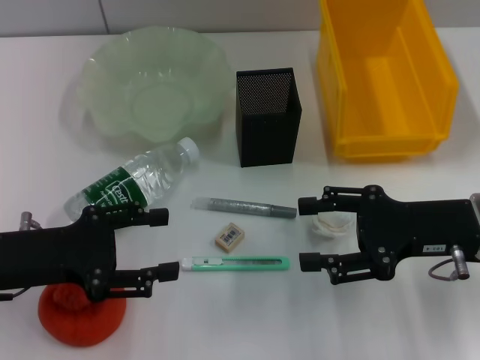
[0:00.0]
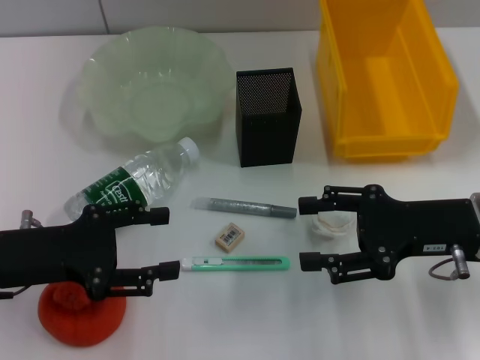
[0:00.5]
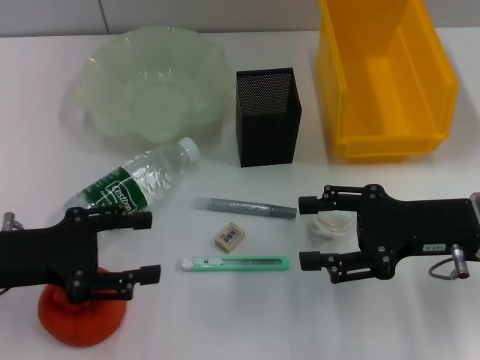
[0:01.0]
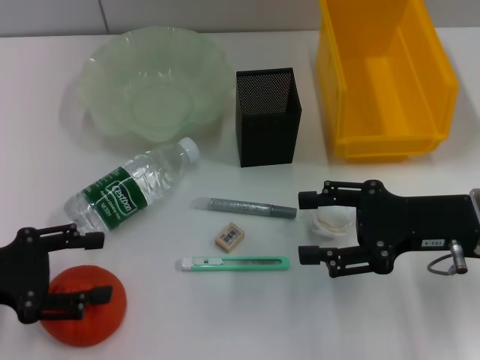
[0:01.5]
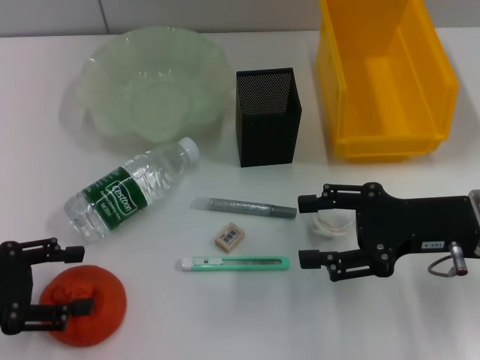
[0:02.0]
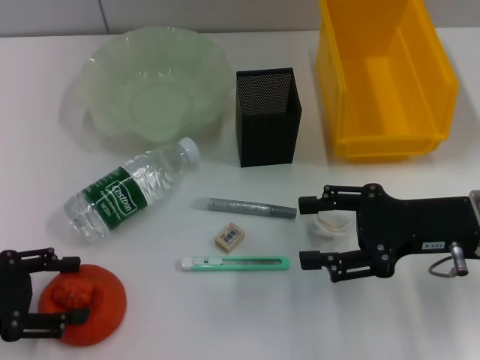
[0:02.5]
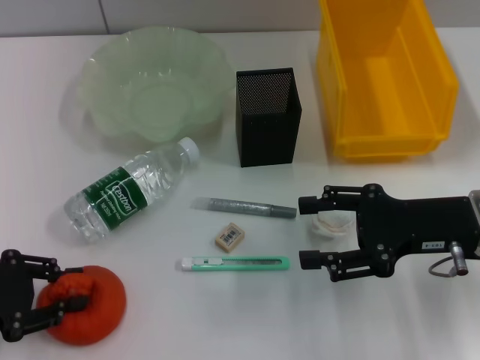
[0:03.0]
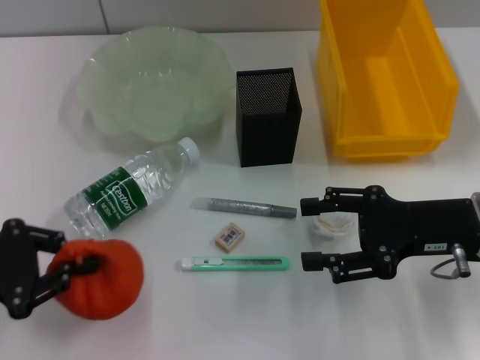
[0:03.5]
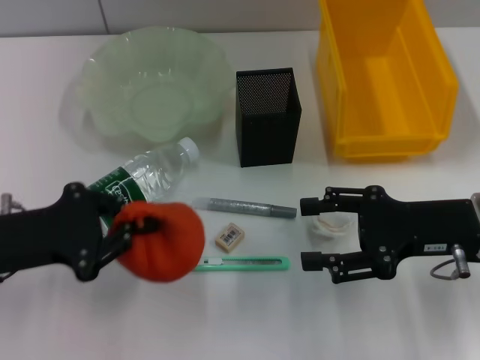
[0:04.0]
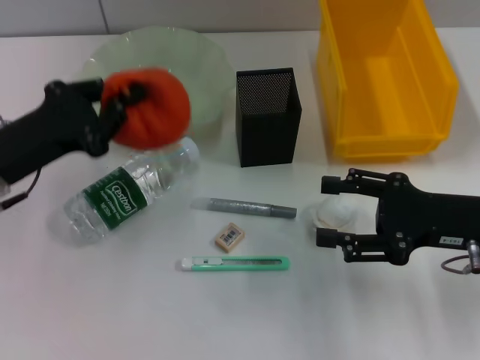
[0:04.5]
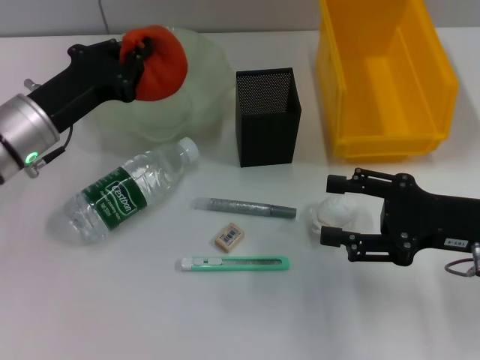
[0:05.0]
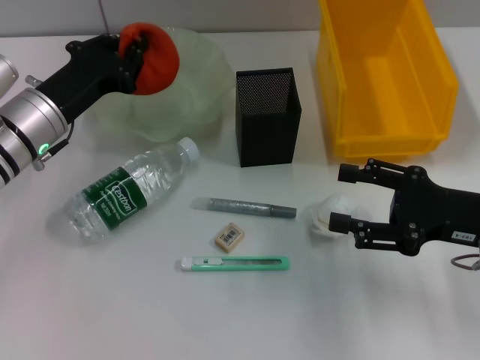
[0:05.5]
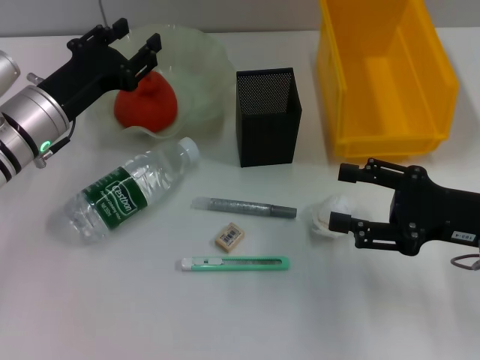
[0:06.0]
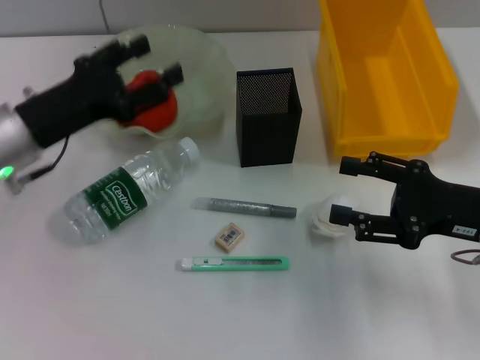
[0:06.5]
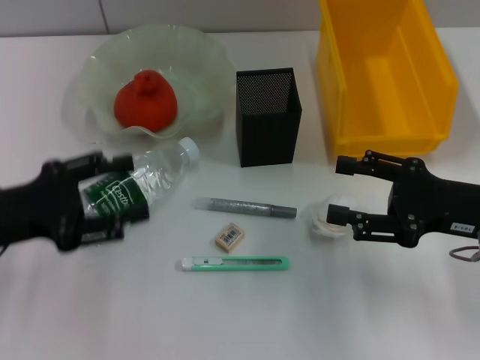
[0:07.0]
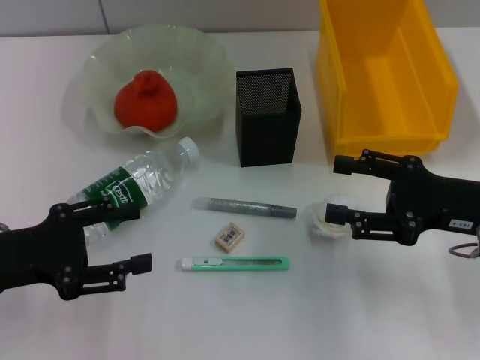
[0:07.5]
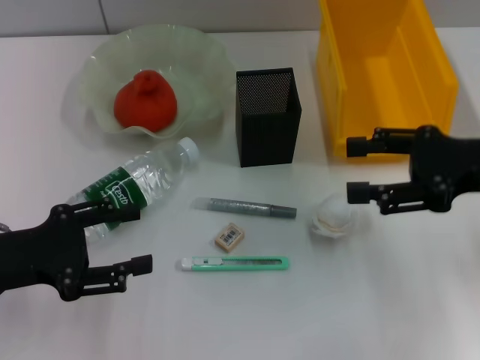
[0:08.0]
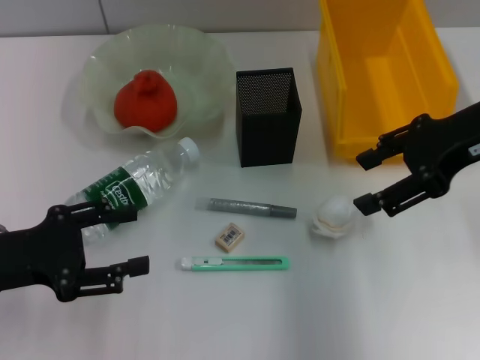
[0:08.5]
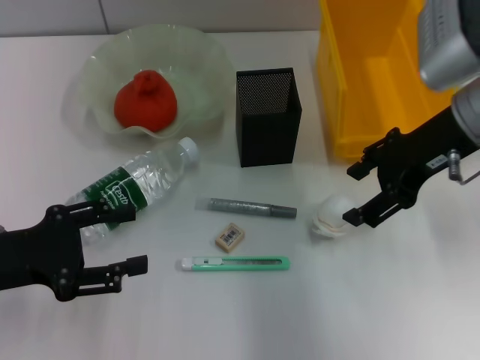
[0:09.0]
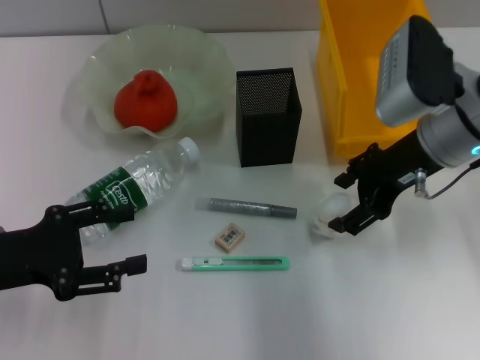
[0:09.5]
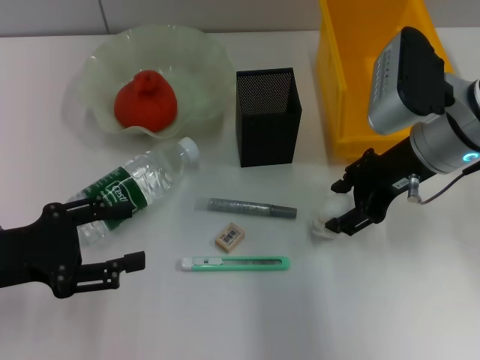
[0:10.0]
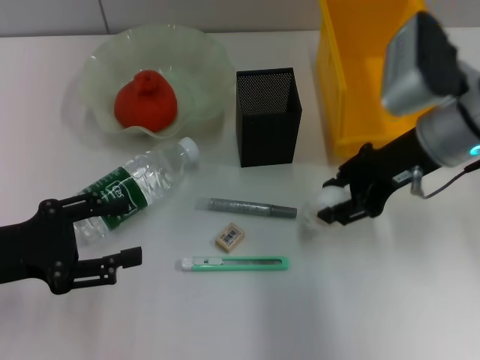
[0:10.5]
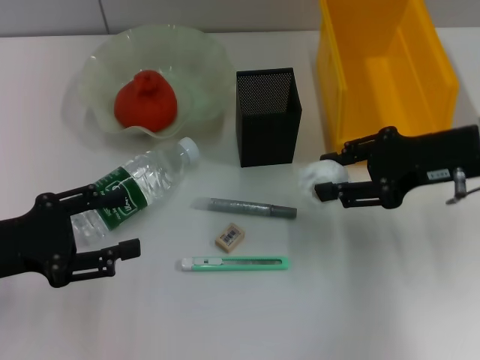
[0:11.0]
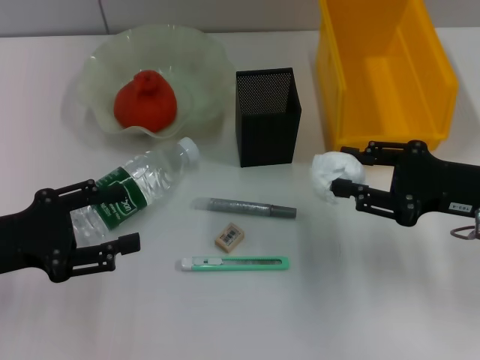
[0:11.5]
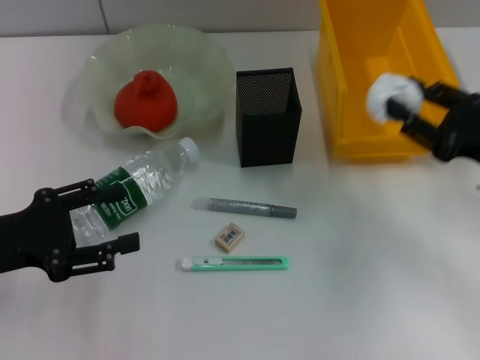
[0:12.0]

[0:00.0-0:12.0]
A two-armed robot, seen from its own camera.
Step, 0:00.0 to 0:03.0: Grab the orange with the left hand.
Step, 0:03.5 to 0:06.0: Place the orange into the fruit bowl with the left hand.
Step, 0:06.5 to 0:10.0: Grab the paper ball with the right hand.
0:00.0 to 0:02.0: The left gripper moves to the left, about 5 cm.
0:02.0 to 0:04.0: The left gripper heads to the right, covering roughly 5 cm, and closes its fingers.
0:04.0 to 0:06.0: The left gripper goes about 15 cm forward and to the right, and opens its fingers.
0:06.0 to 0:08.0: The right gripper is displaced upward by roughly 5 cm. Meanwhile the left gripper goes approximately 15 cm backward and to the left, and opens.
0:08.0 to 0:10.0: The right gripper shifts roughly 10 cm to the left and forward.
0:10.0 to 0:12.0: The right gripper goes approximately 15 cm to the right, backward and downward.

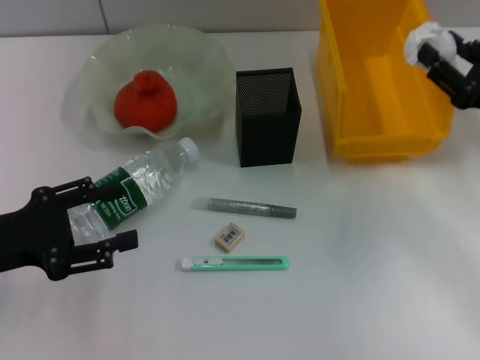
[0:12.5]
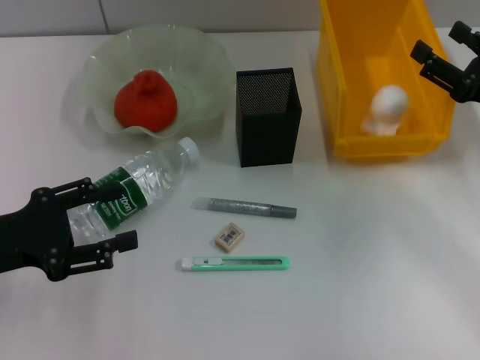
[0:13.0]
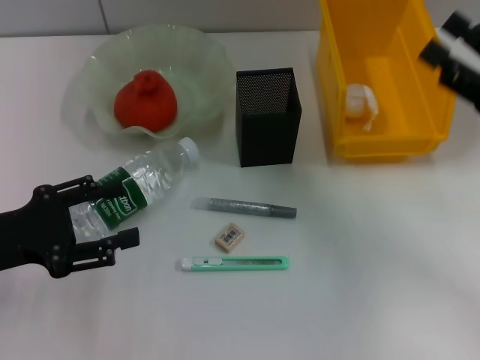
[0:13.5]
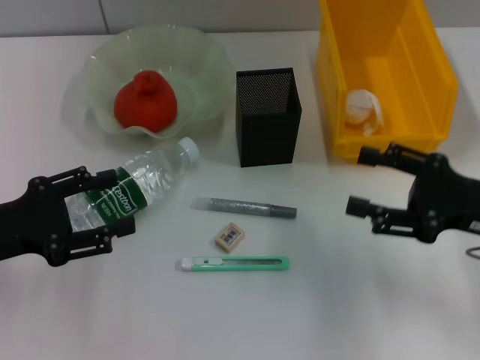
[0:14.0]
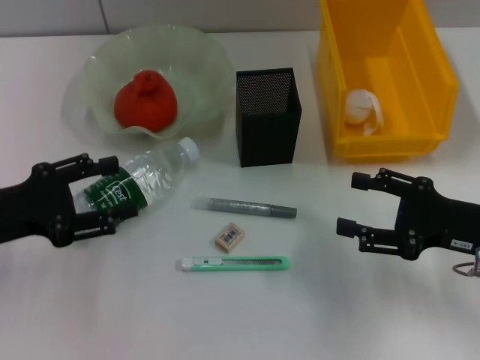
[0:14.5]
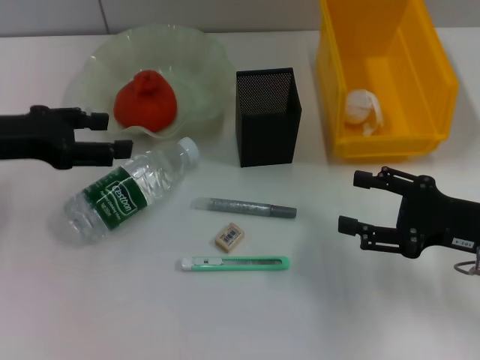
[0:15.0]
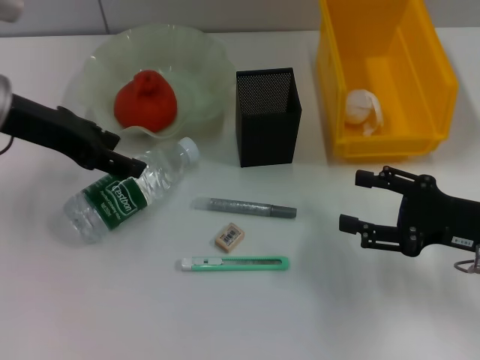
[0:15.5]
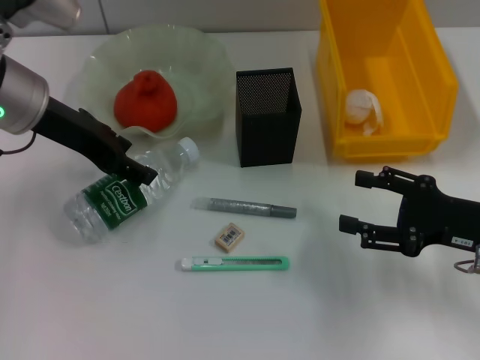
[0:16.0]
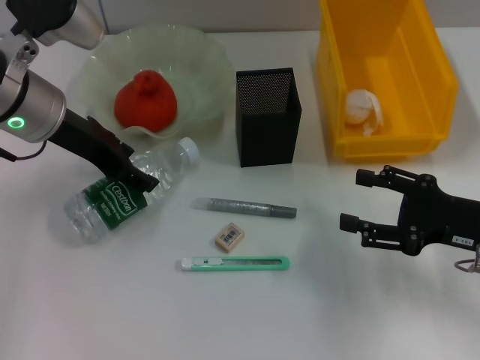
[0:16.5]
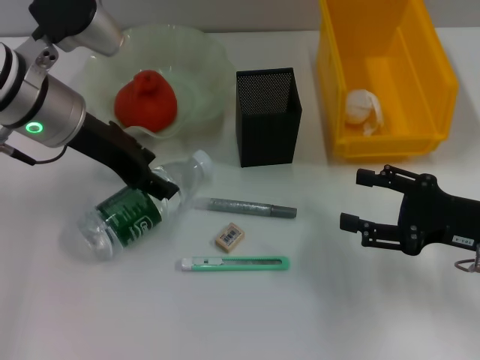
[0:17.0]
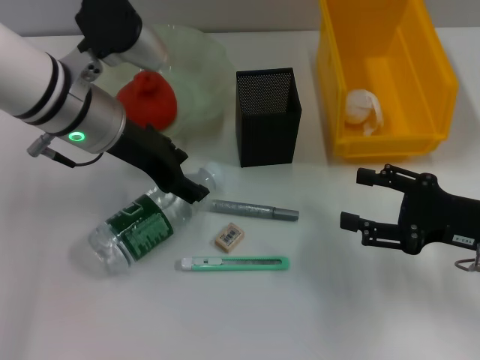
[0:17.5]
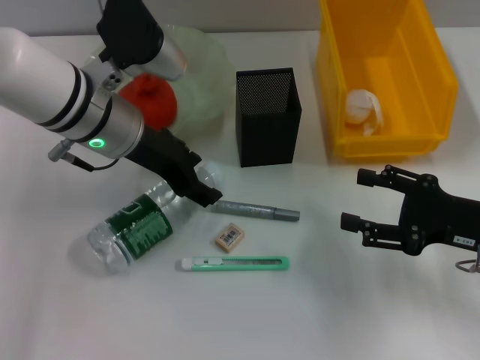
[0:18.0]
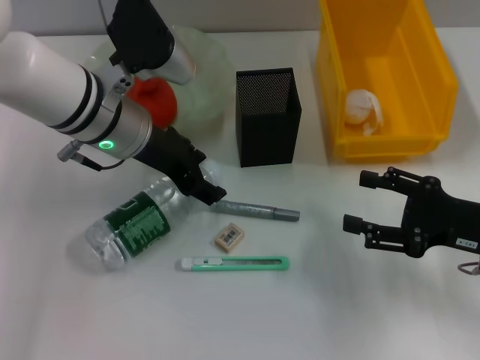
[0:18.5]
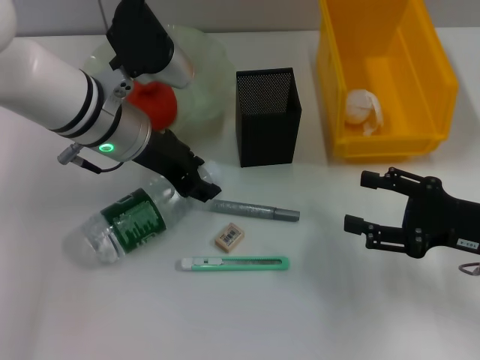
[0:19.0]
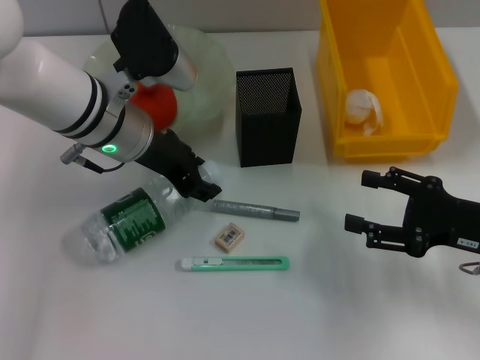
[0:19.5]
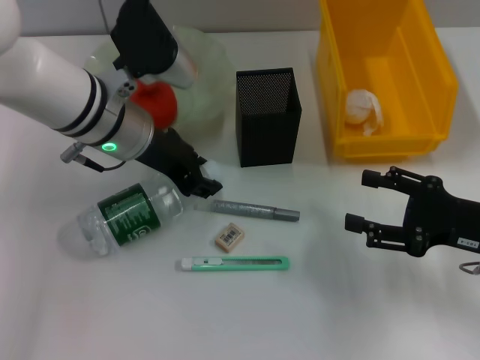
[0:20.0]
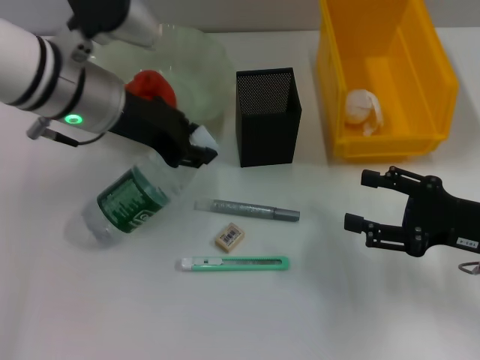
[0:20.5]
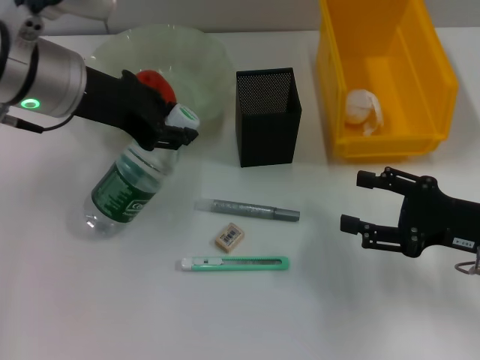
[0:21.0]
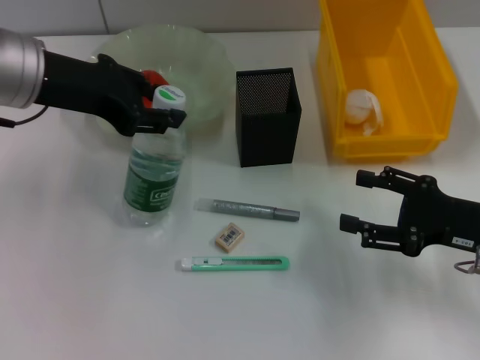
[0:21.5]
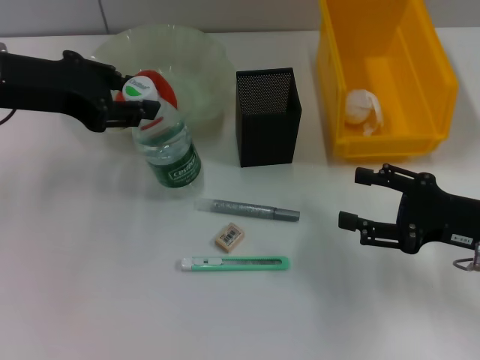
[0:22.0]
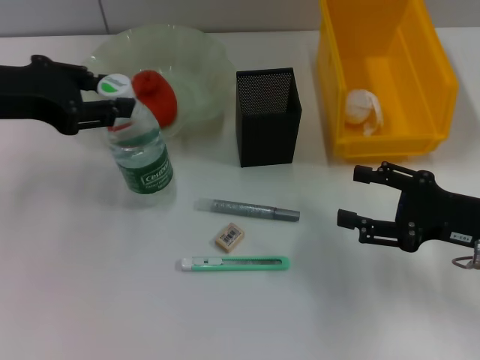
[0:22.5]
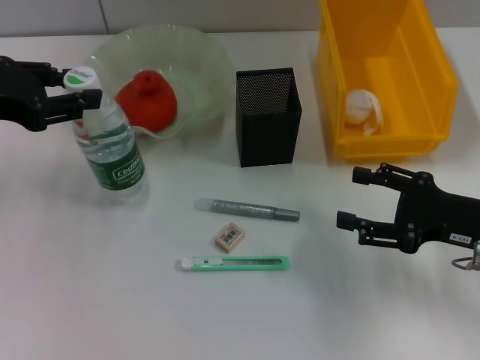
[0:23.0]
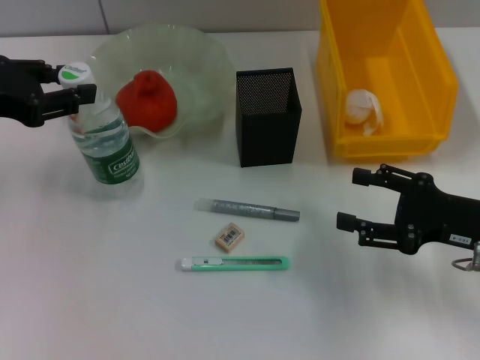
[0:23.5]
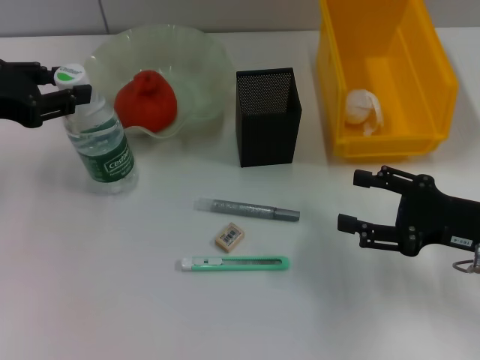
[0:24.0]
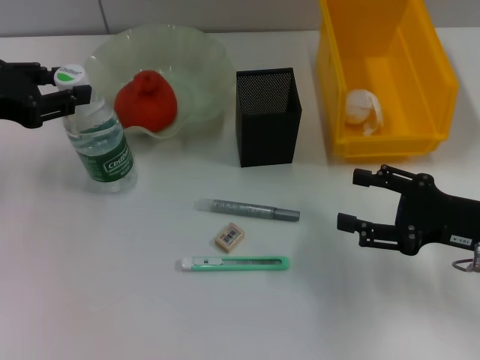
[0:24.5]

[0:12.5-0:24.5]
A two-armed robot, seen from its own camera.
Step, 0:13.5 to 0:19.5: Grab the water bottle with the left hand.
0:12.5 to 0:14.5: The right gripper heads backward, covering about 5 cm.
0:14.5 to 0:16.5: The left gripper shifts roughly 20 cm forward, to the right and upward.
0:16.5 to 0:18.5: The left gripper moves to the right, roughly 5 cm.
0:18.5 to 0:20.5: The left gripper closes its fingers.
0:20.5 to 0:22.5: The left gripper moves to the left, about 10 cm.
0:22.5 to 0:24.5: The grippers stay close to where they were, moving slightly.

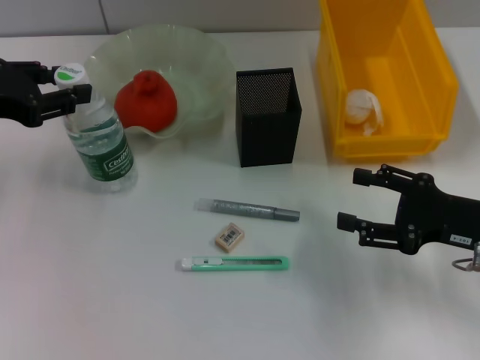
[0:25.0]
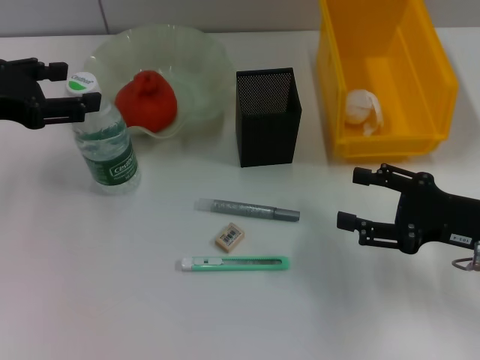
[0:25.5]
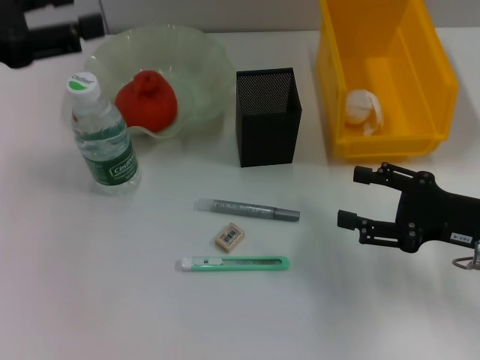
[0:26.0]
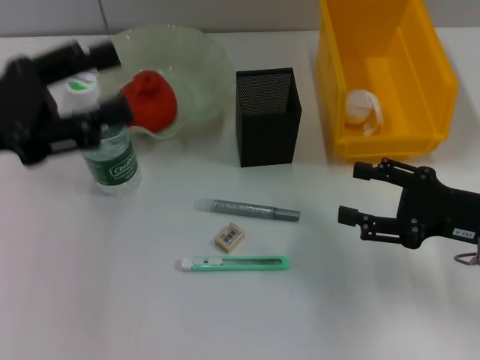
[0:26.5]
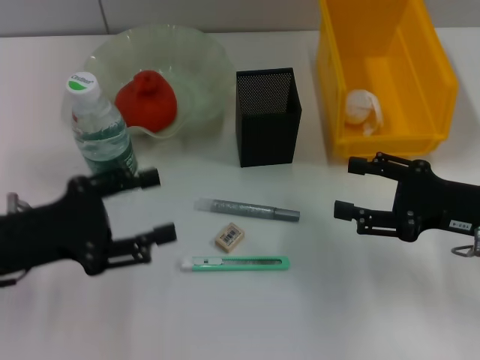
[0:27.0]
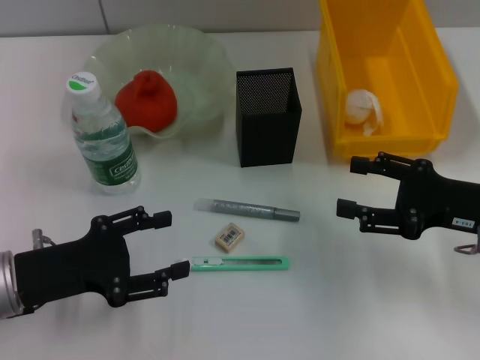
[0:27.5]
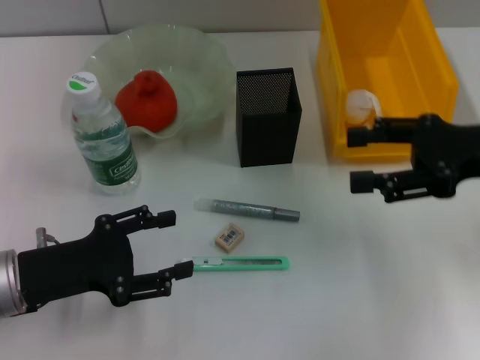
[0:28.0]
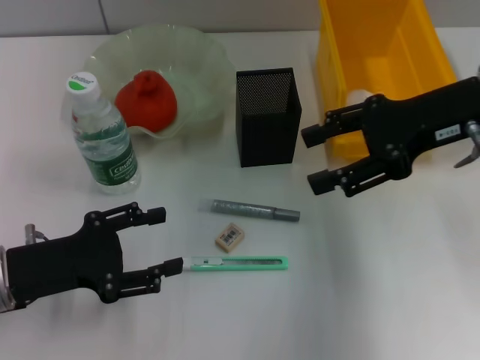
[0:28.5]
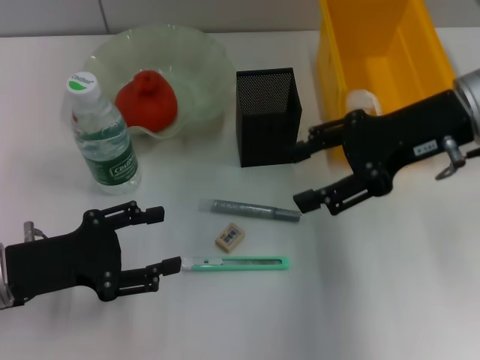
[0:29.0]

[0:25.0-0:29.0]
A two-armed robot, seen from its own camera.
0:25.0 to 0:27.0: The left gripper travels downward and backward by roughly 15 cm, and opens its fingers.
0:27.0 to 0:29.0: The right gripper moves upward, forward and to the left, roughly 15 cm.
